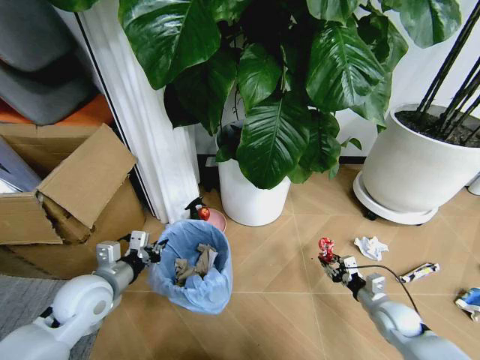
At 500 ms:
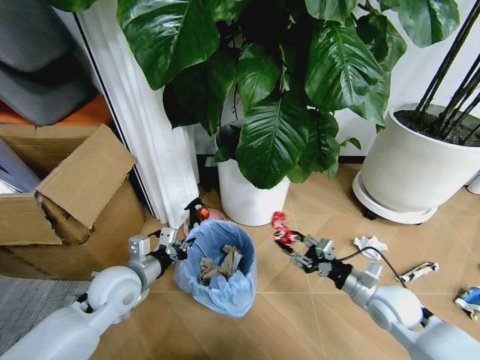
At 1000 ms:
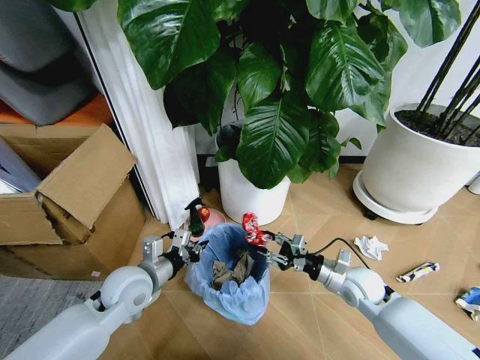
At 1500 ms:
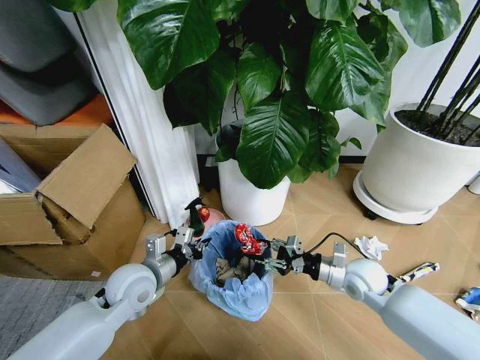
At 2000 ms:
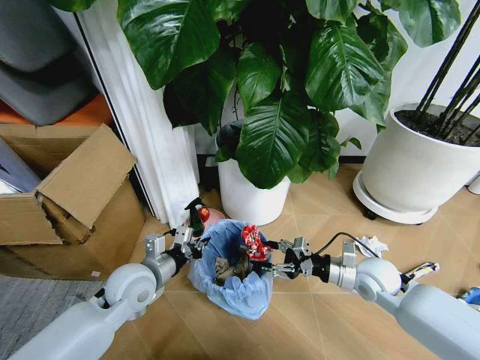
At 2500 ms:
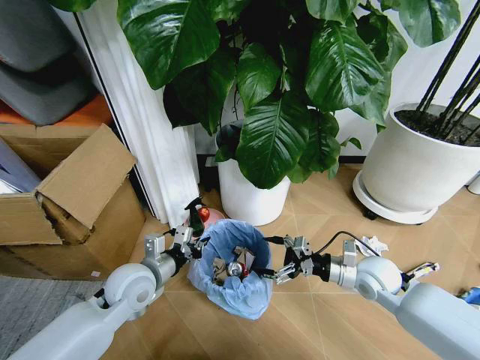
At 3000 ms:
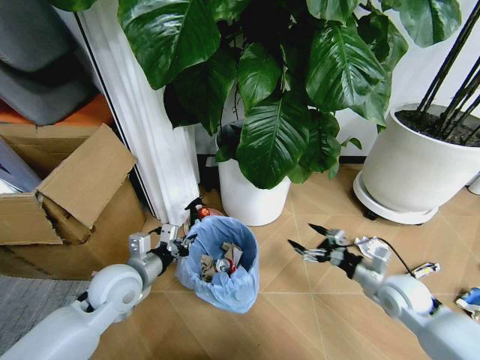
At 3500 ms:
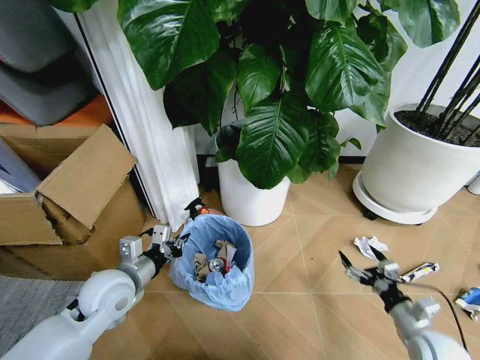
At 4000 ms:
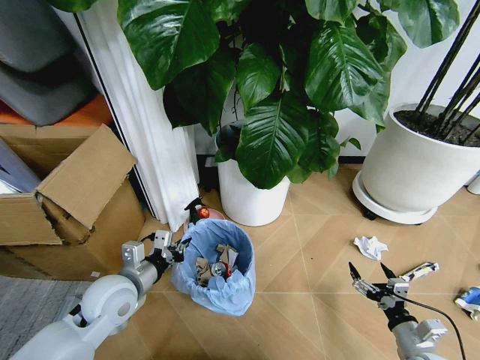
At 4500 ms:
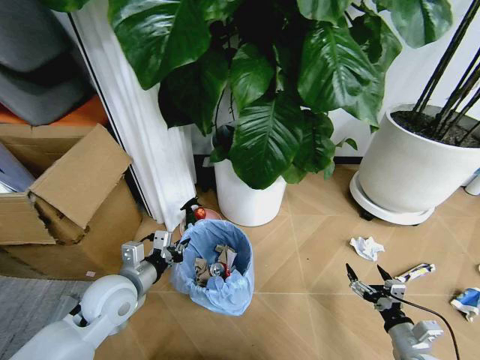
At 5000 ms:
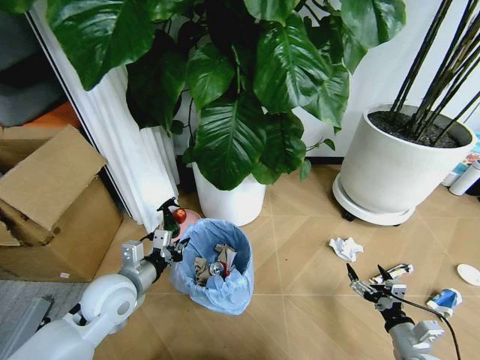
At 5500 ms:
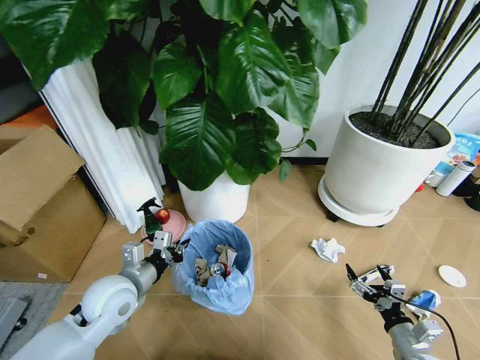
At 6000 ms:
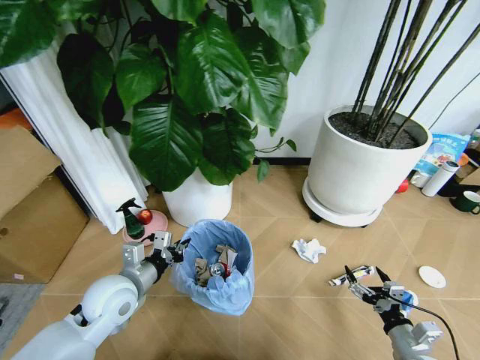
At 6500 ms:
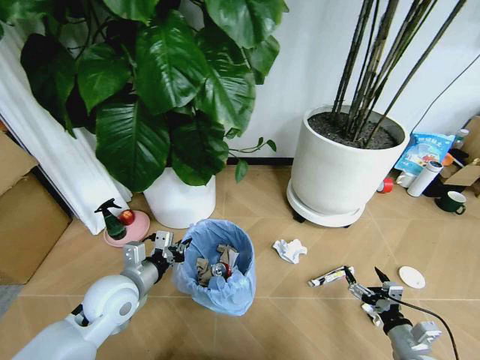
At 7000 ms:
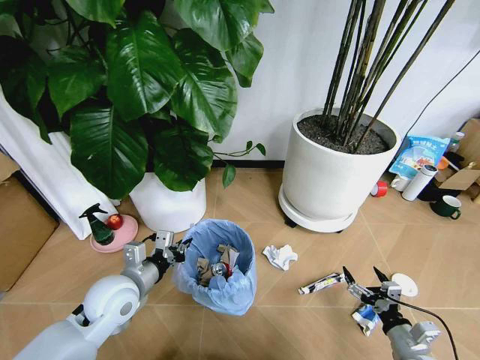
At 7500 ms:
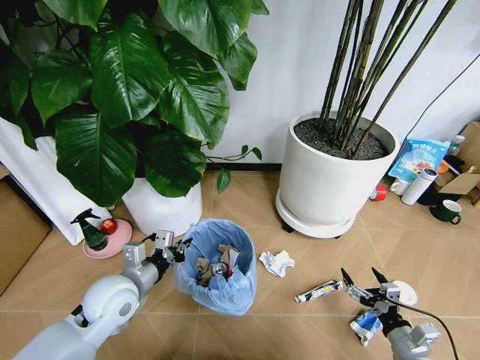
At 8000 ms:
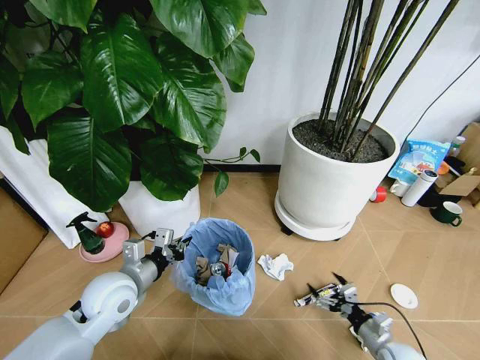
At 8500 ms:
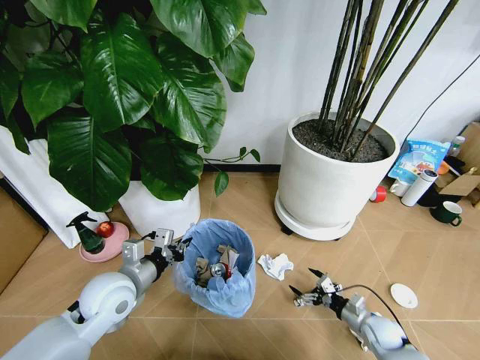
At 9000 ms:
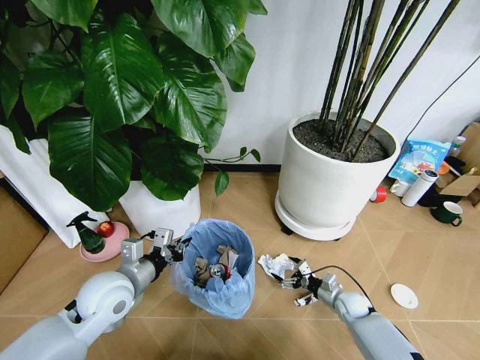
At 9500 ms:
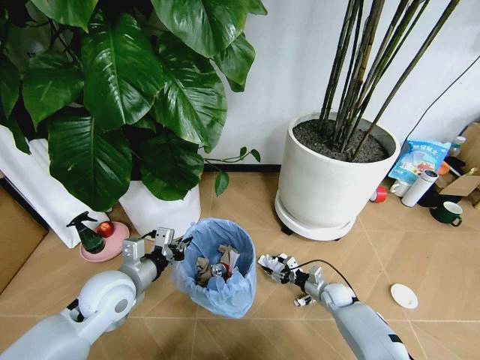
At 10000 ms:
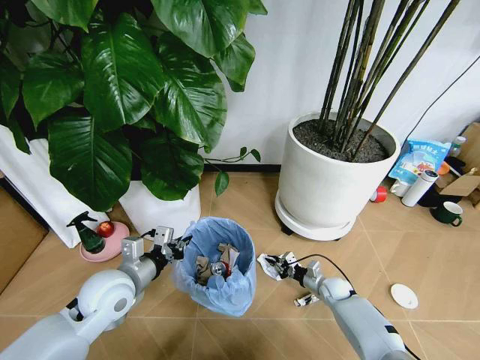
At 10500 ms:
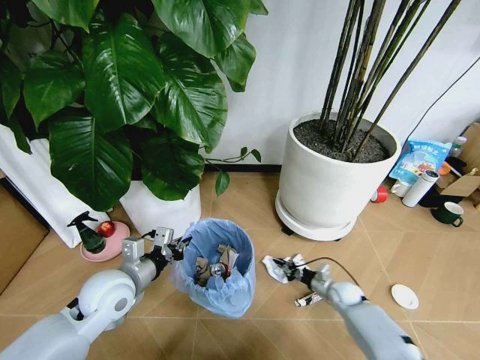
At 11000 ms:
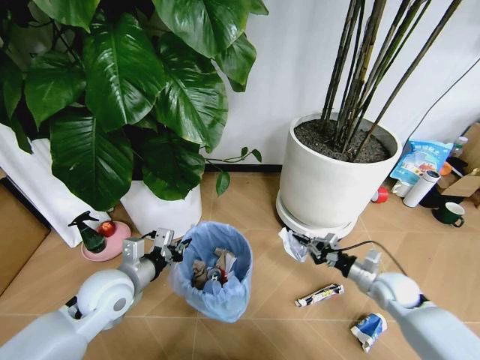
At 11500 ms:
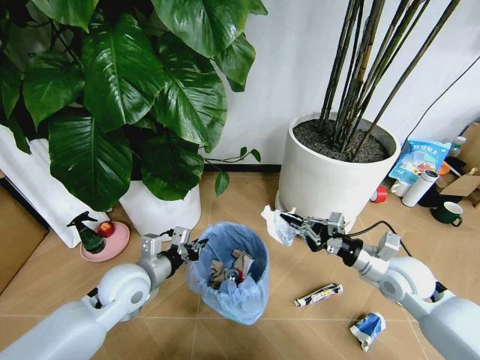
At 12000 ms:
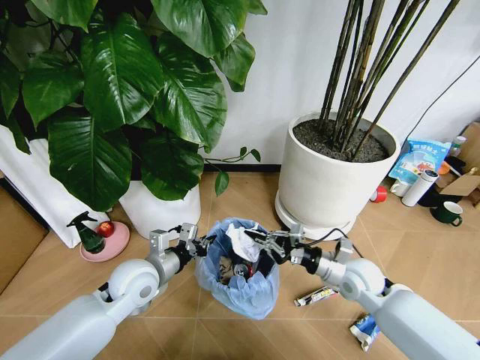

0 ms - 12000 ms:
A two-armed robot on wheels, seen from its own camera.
Task of the whole recording: Pick up the trash bin and place the garbage on the floor into it.
0 ms - 2000 ms: The right gripper is displaced upward, to the left and forward by about 15 cm, while the left gripper goes roughly 10 cm to the right.
2000 ms - 4000 ms: The right gripper shifts approximately 20 cm backward, downward and to the right, and opens its fingers.
6000 ms - 8000 ms: The right gripper travels downward by approximately 5 cm.
8000 ms - 10000 ms: The right gripper is displaced forward by some 20 cm, and closes its fingers.
10000 ms - 12000 ms: The right gripper is displaced upward by about 25 cm.

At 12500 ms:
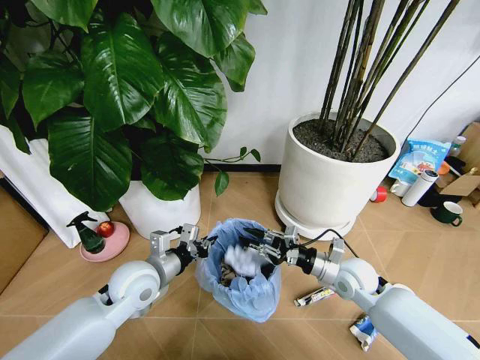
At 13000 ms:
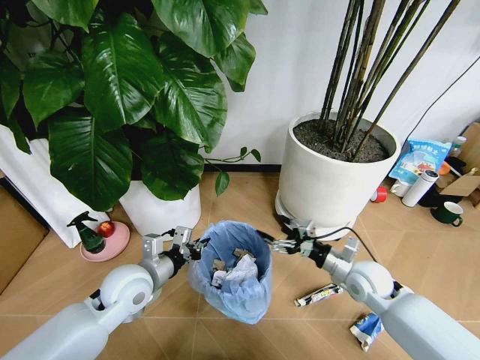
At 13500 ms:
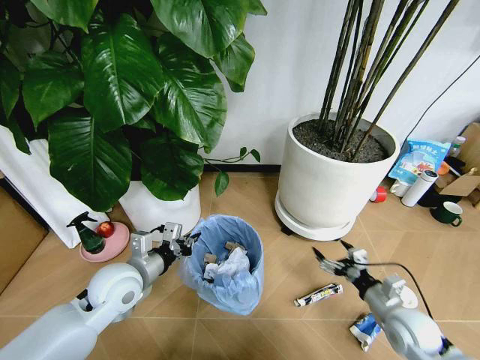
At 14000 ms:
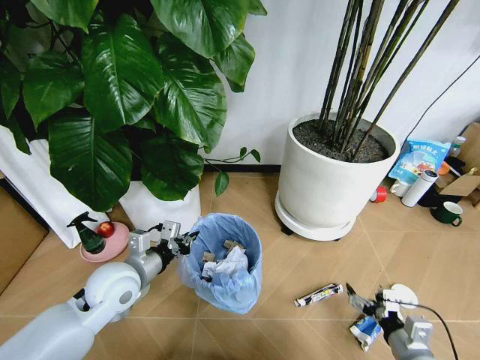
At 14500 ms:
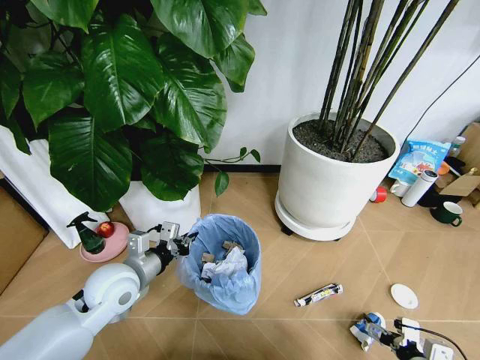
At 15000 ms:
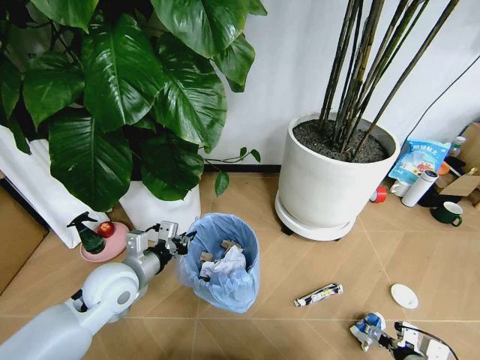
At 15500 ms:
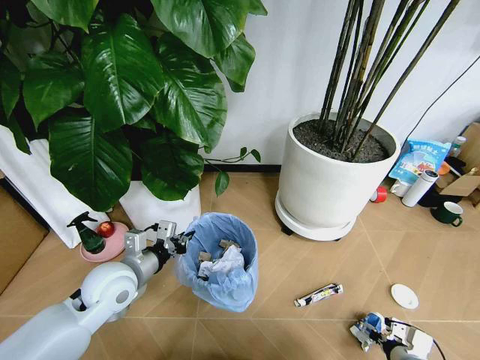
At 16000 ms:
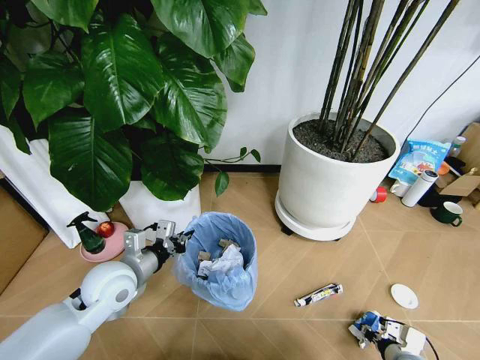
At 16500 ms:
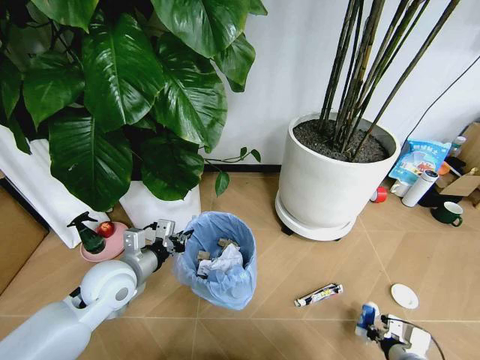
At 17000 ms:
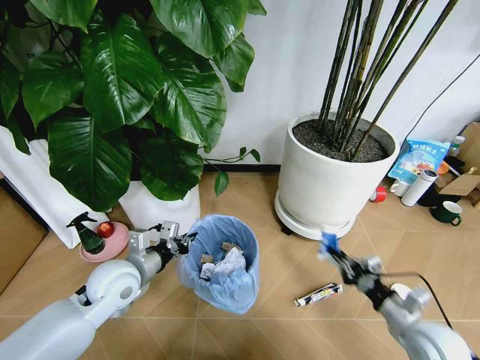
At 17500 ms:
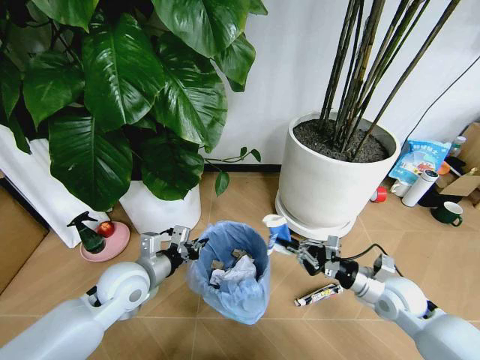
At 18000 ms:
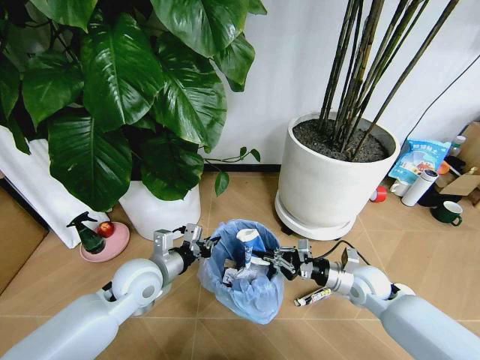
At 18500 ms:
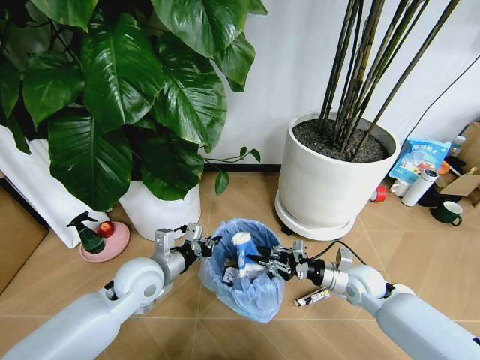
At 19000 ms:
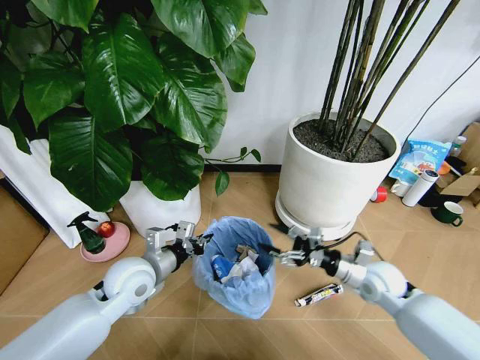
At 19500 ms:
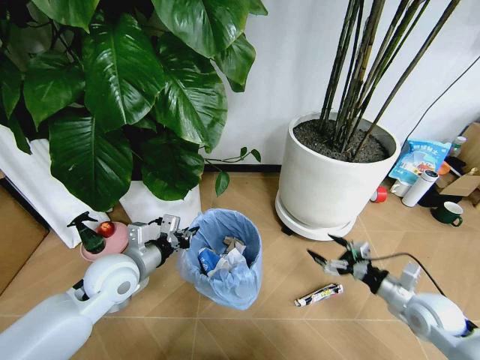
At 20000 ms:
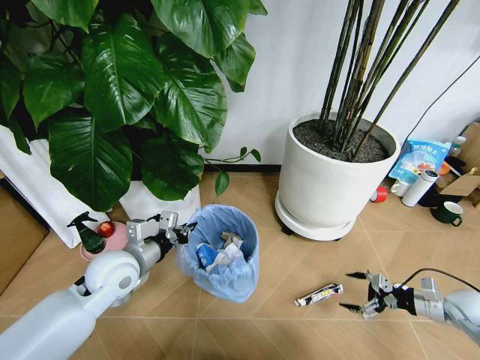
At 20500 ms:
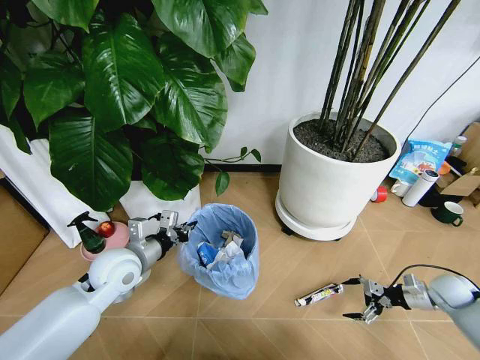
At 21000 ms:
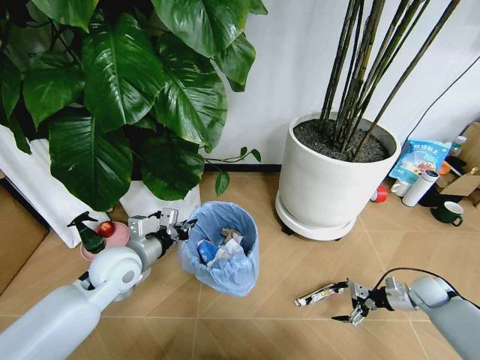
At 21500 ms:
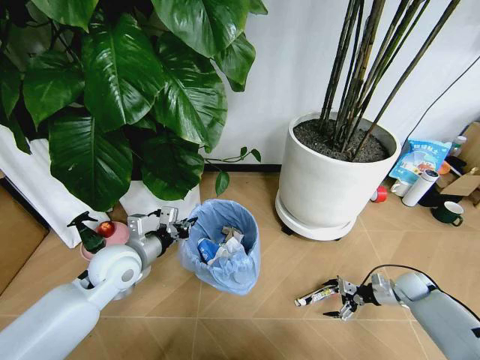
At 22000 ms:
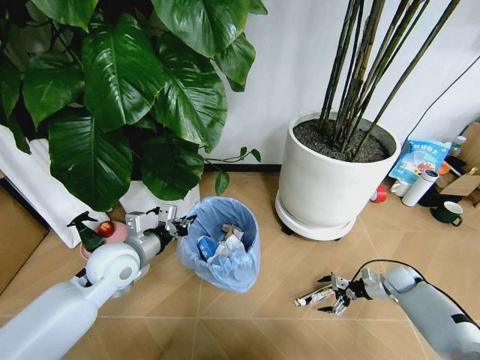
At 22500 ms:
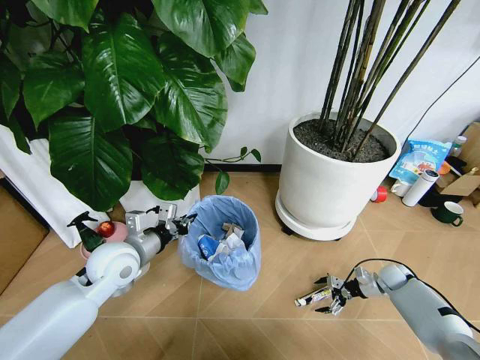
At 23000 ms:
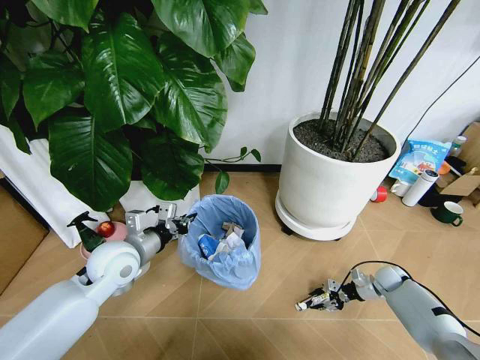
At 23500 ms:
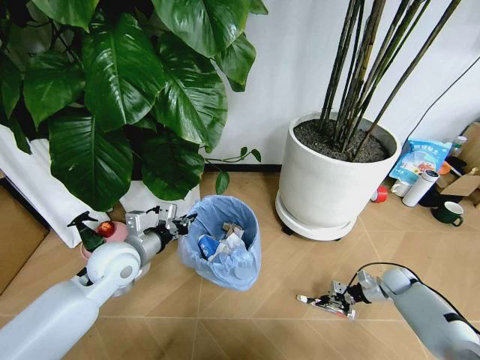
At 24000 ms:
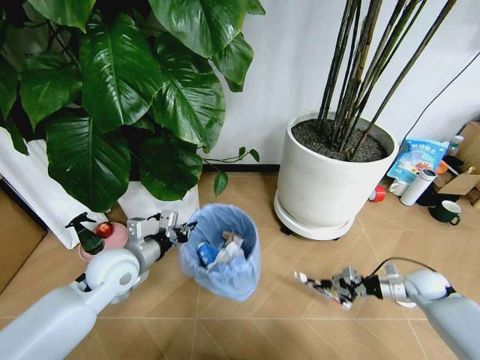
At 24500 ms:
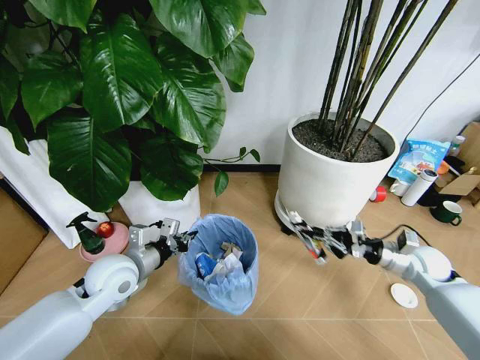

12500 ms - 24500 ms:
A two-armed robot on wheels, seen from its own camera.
Task of the whole recording: Pick up the trash bin and place the garbage on the floor into it.
12500 ms - 14500 ms: The right gripper moves backward and to the right, approximately 25 cm, and opens up.
14500 ms - 16500 ms: The right gripper moves about 5 cm, and closes.
16500 ms - 18500 ms: The right gripper is displaced forward, to the left and upward by about 20 cm. The left gripper moves about 5 cm.
18500 ms - 20500 ms: The right gripper moves to the right, about 25 cm, and opens its fingers, while the left gripper shifts by some 5 cm.
20500 ms - 22500 ms: The right gripper moves downward, forward and to the left, roughly 15 cm.
22500 ms - 24500 ms: The right gripper moves upward, approximately 20 cm, and closes up.

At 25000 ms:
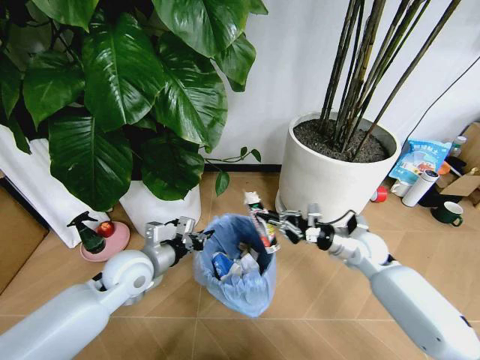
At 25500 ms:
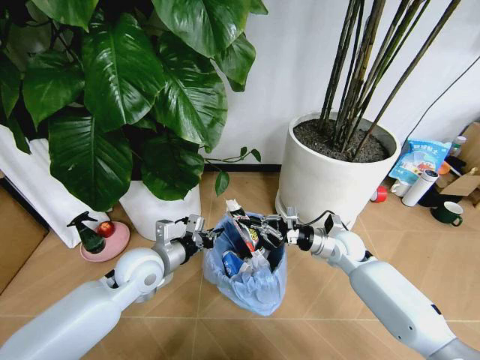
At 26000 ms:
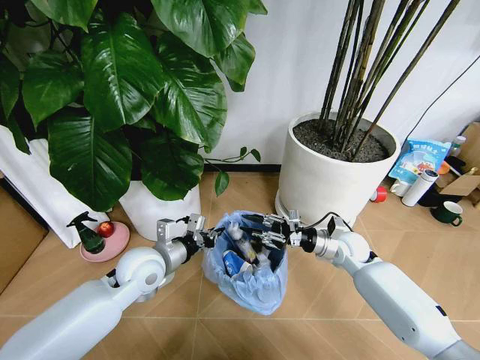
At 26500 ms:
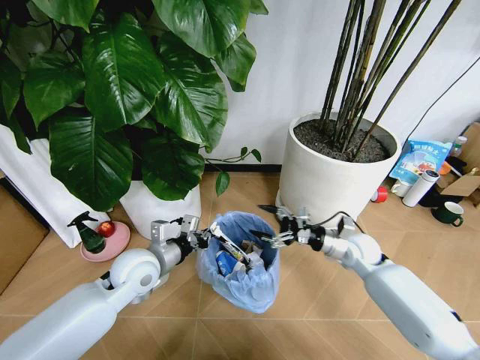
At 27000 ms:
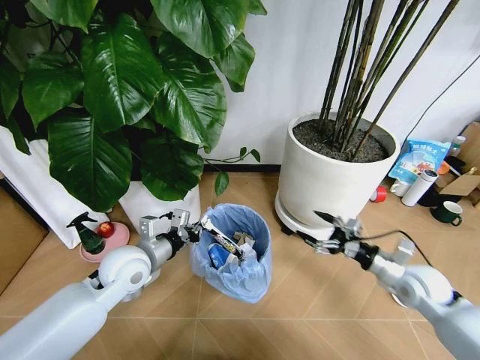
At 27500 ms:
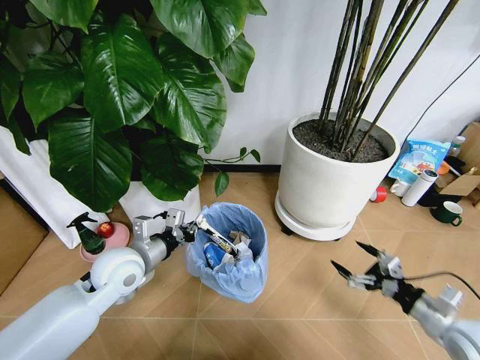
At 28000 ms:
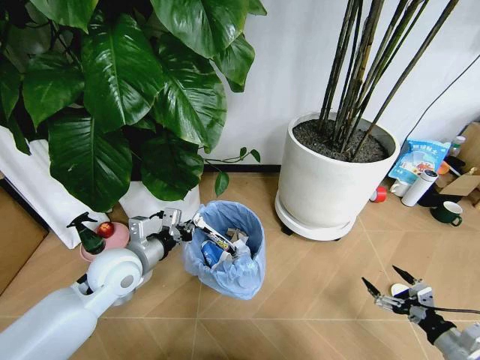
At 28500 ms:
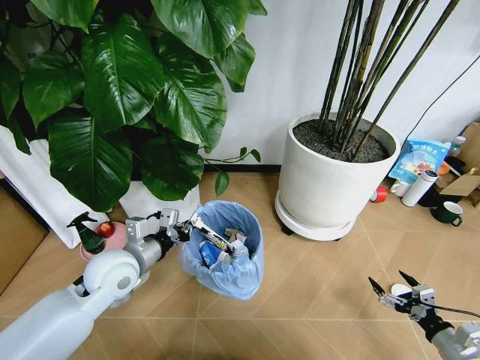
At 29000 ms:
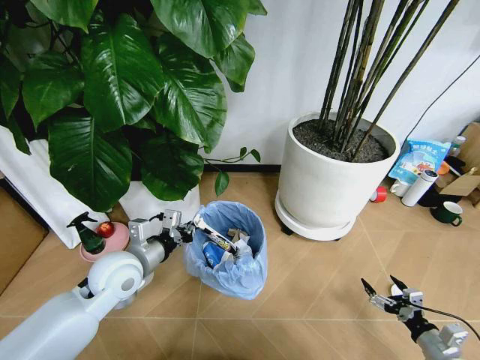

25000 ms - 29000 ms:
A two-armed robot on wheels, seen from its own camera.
Task of the whole recording: Pick up the trash bin and place the garbage on the floor into it.
25000 ms - 27000 ms: The right gripper is displaced backward and to the right by approximately 10 cm, and opens its fingers.
27000 ms - 29000 ms: The right gripper is displaced backward, downward and to the right by some 25 cm.
